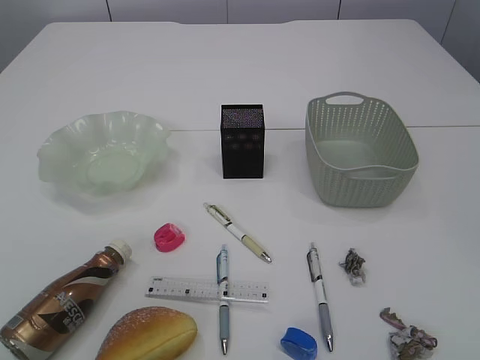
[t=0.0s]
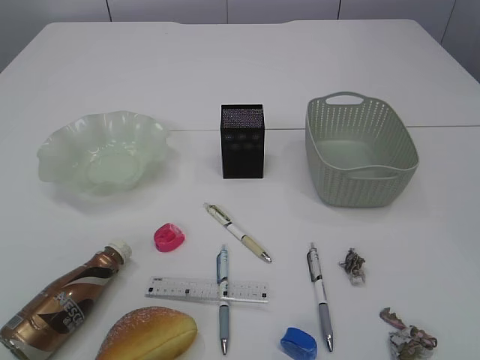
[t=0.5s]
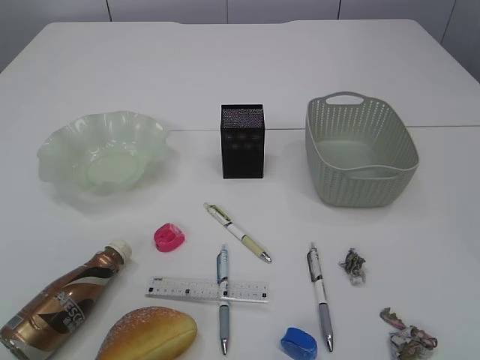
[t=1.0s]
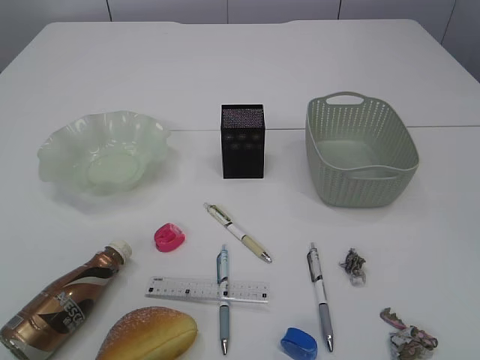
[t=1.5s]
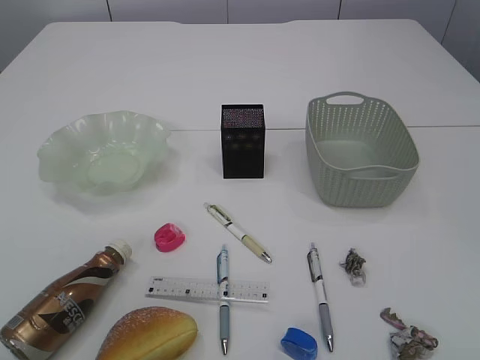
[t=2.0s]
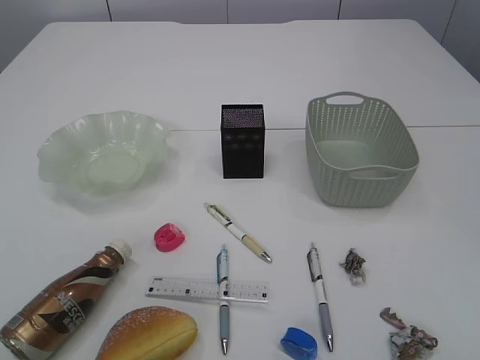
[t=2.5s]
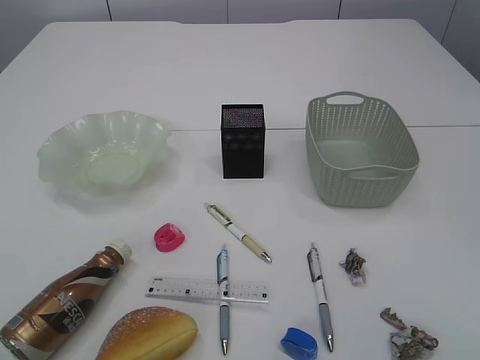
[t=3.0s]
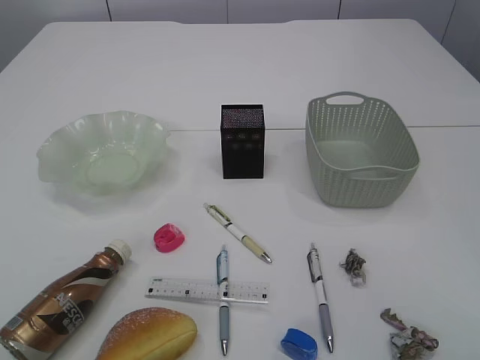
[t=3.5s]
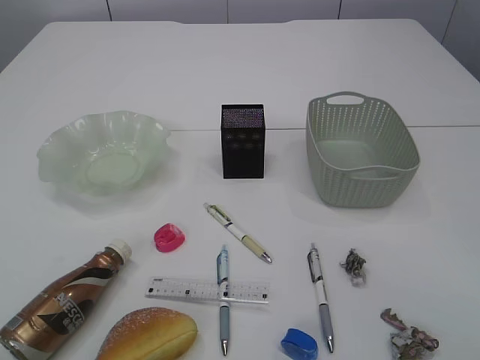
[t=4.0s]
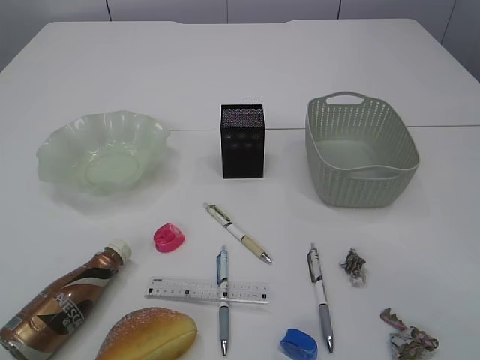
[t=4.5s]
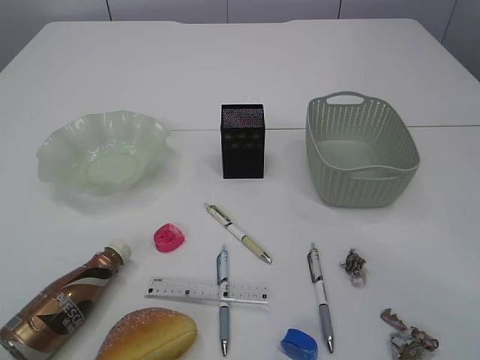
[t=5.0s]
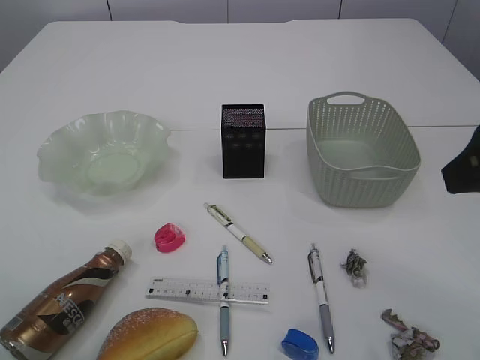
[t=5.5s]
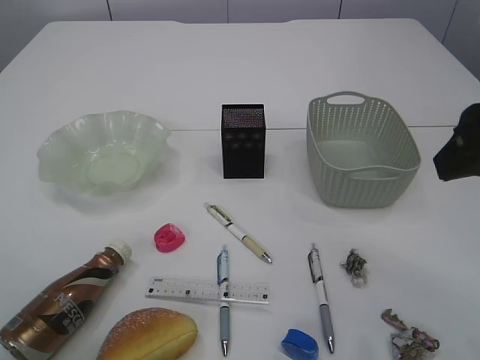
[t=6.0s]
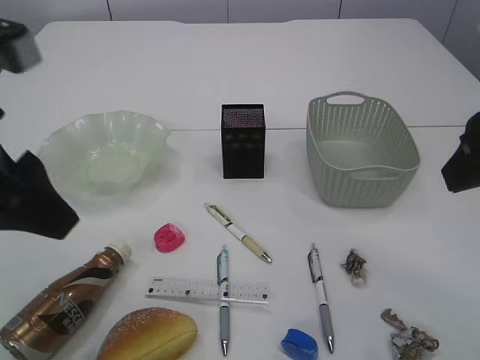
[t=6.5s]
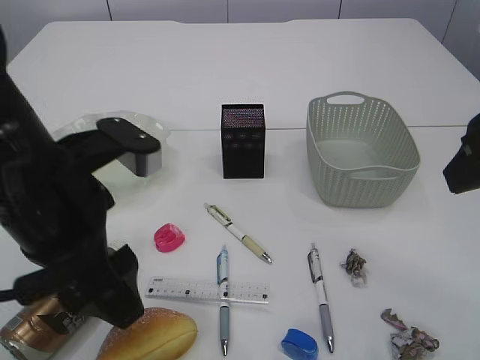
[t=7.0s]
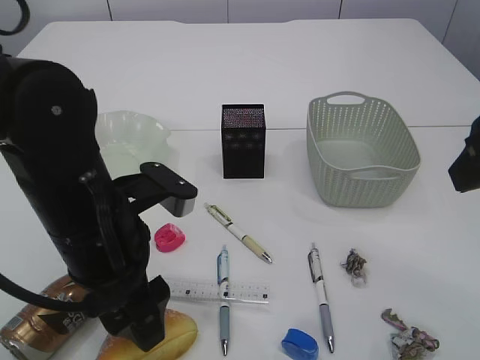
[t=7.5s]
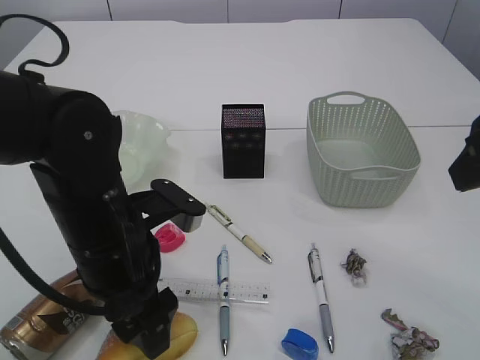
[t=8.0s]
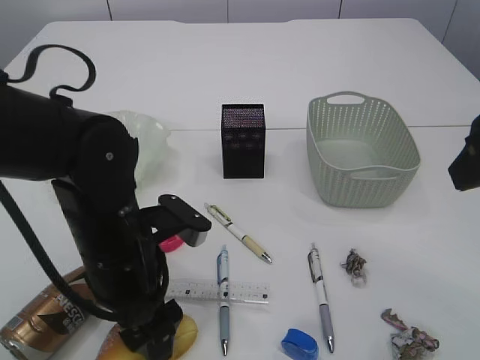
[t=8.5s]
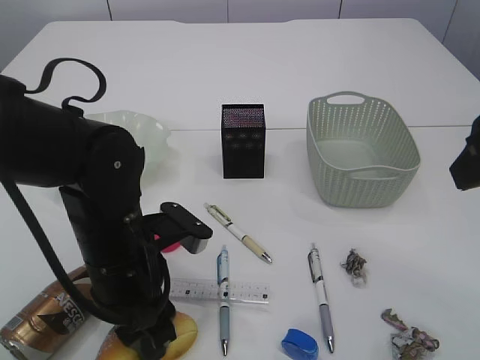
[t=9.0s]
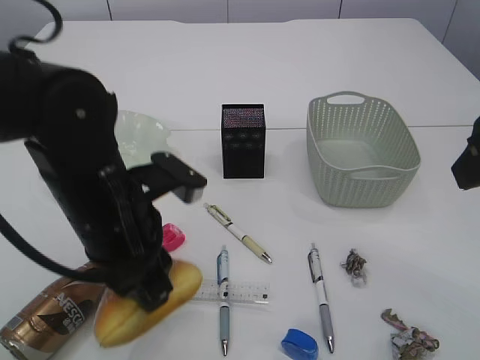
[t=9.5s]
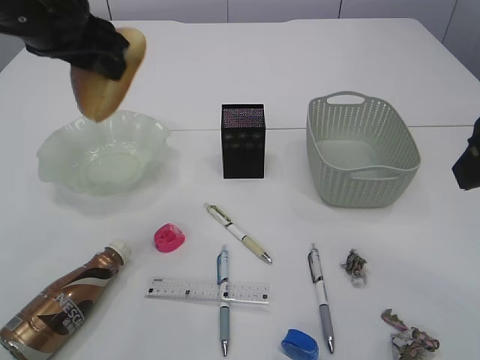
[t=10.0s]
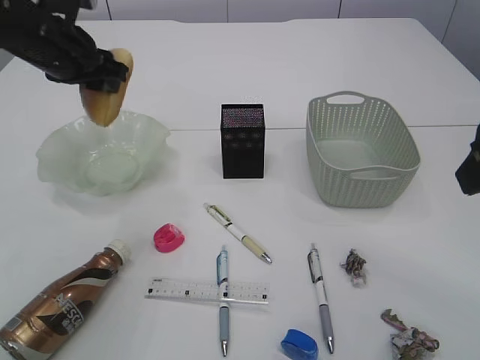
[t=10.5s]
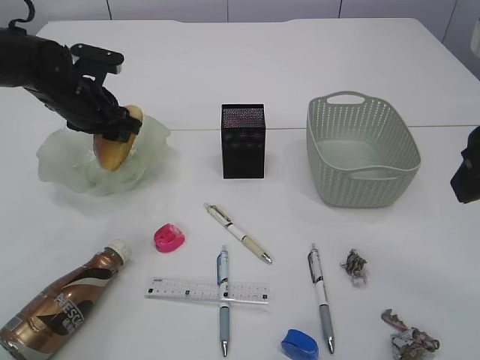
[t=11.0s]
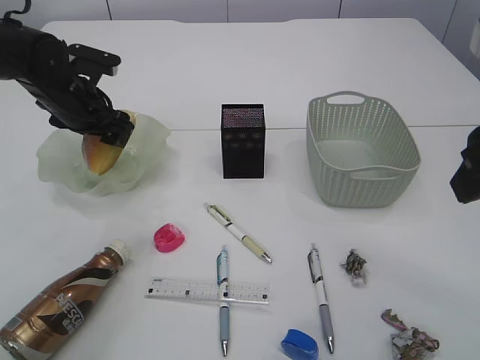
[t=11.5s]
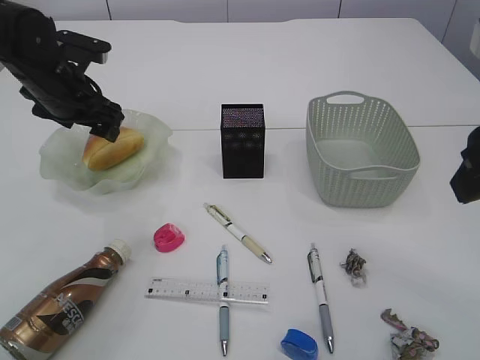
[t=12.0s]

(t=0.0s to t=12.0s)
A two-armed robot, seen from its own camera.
t=4.0s - t=6.0s: The right gripper moves forward and to the left, roughly 10 cm.
t=6.0s - t=8.0s: The left gripper heads downward and to the right, covering about 25 cm, and opens.
t=8.0s - t=10.0s: The left gripper travels upward, forward and to the left by about 20 cm, and closes up.
t=10.0s - t=12.0s: The left gripper travels downward and forward by roughly 15 cm, and opens up.

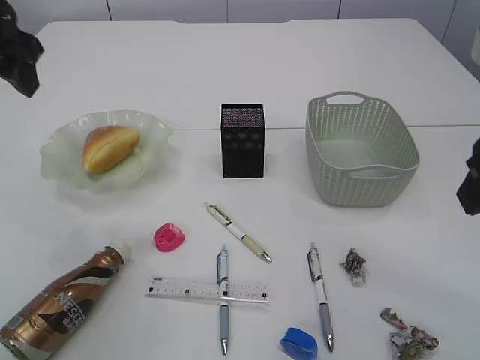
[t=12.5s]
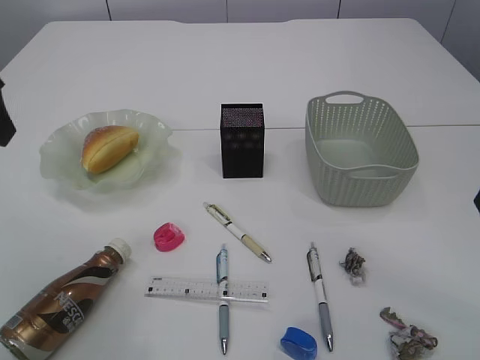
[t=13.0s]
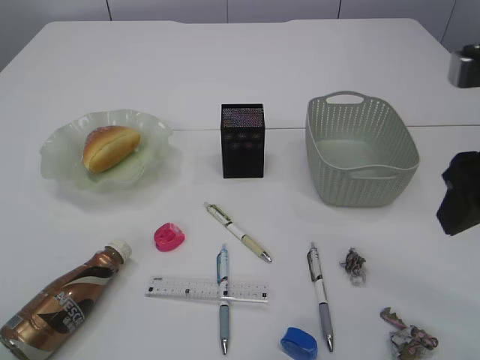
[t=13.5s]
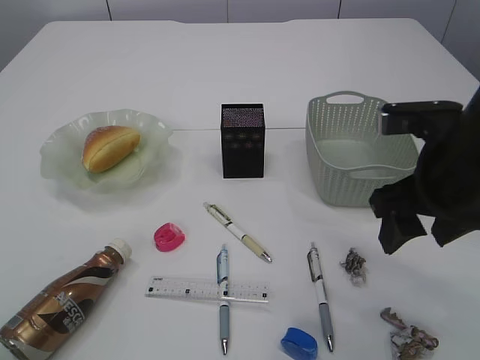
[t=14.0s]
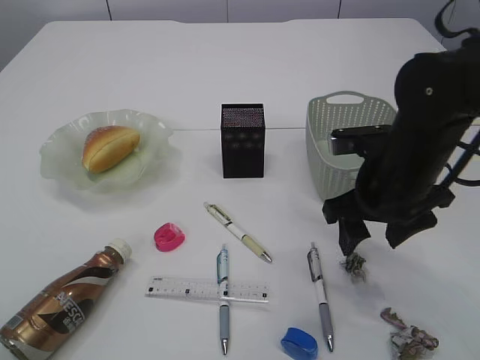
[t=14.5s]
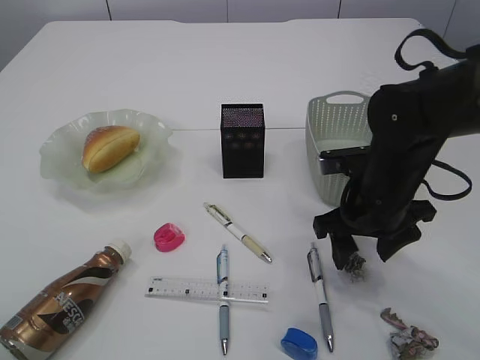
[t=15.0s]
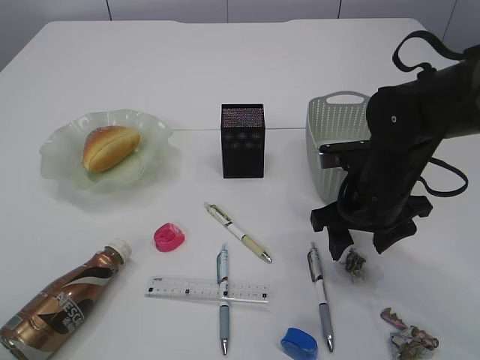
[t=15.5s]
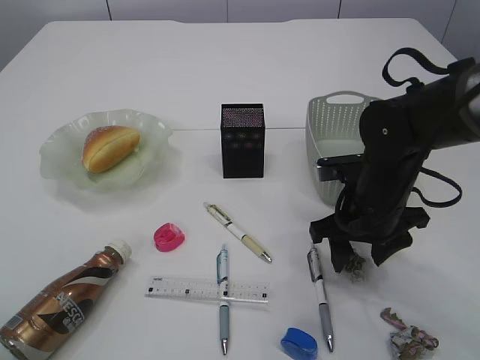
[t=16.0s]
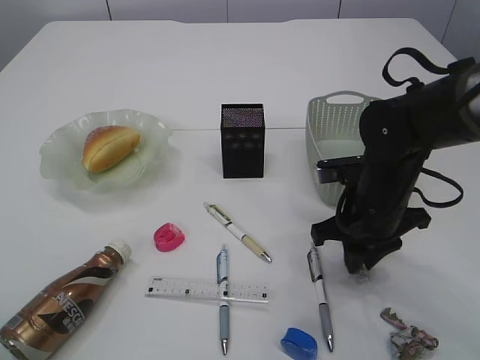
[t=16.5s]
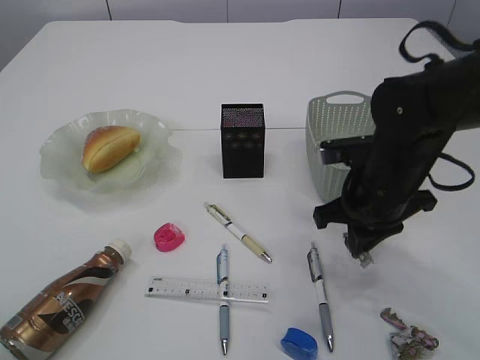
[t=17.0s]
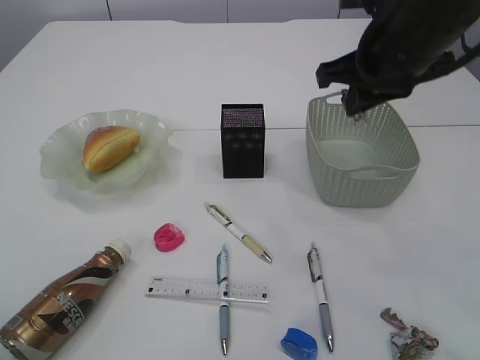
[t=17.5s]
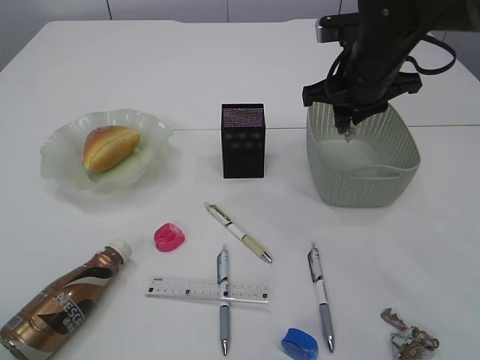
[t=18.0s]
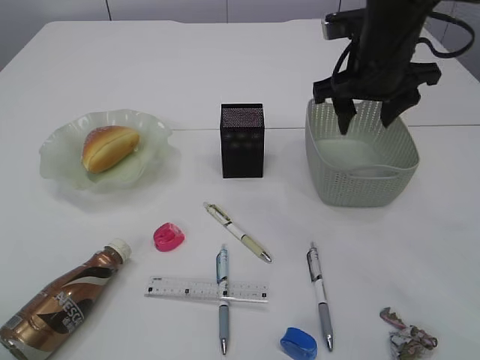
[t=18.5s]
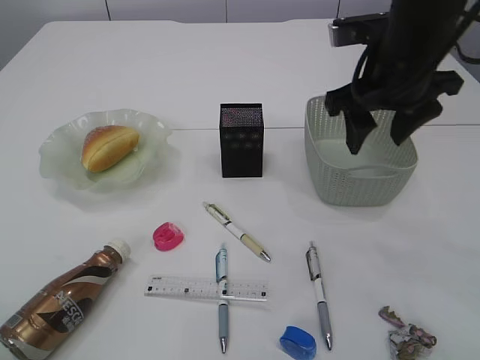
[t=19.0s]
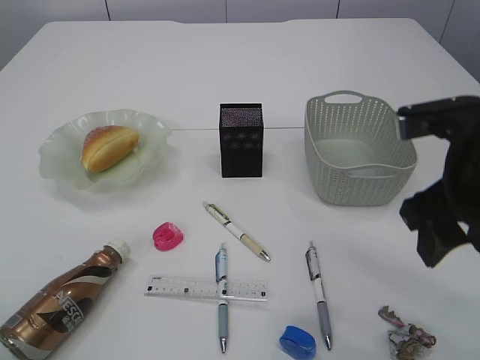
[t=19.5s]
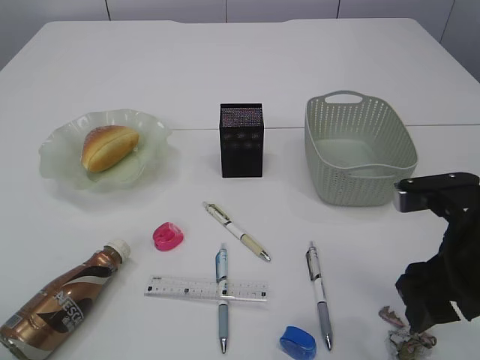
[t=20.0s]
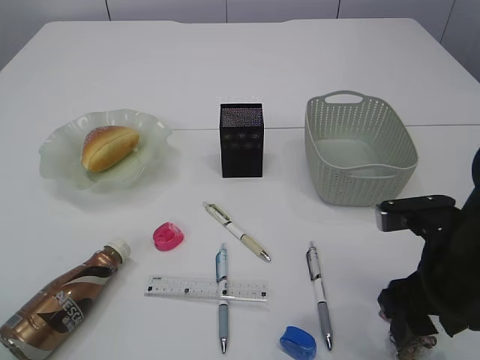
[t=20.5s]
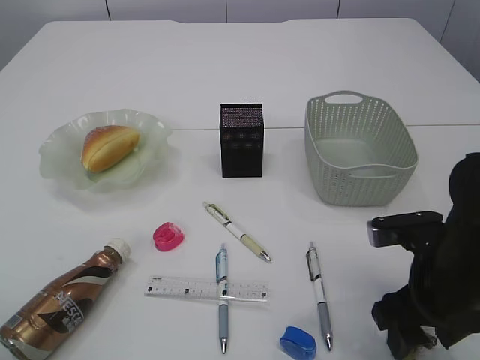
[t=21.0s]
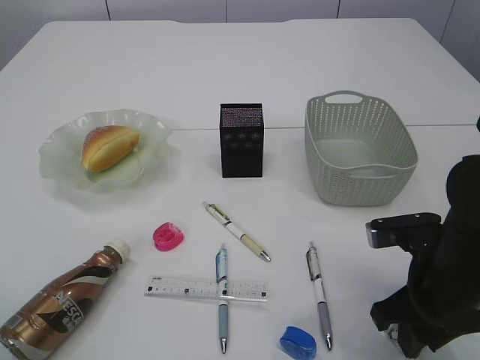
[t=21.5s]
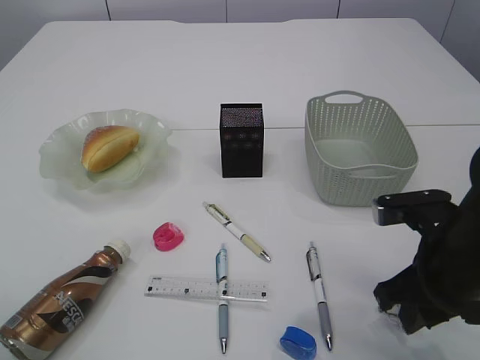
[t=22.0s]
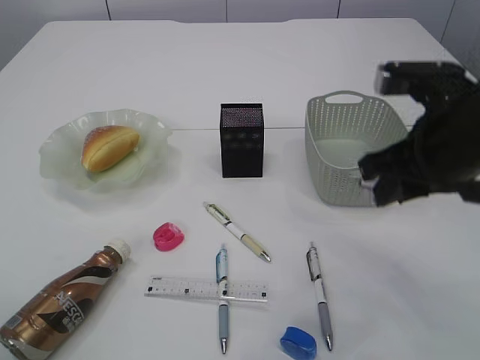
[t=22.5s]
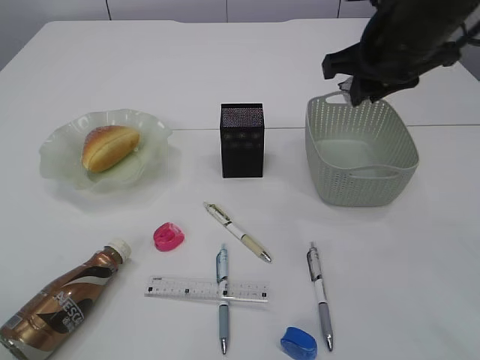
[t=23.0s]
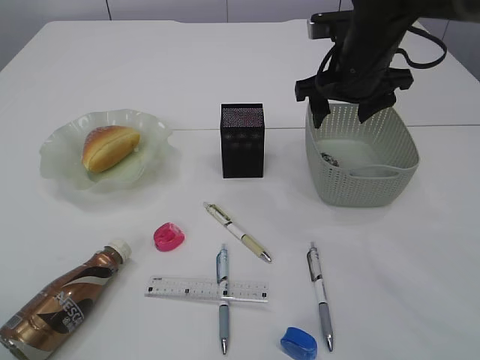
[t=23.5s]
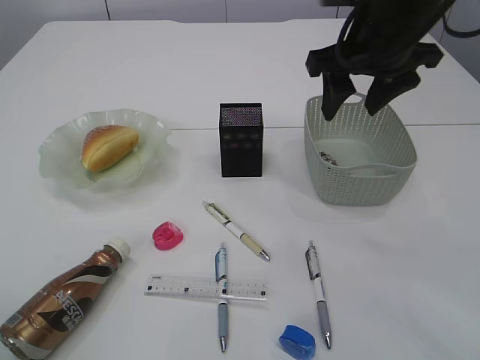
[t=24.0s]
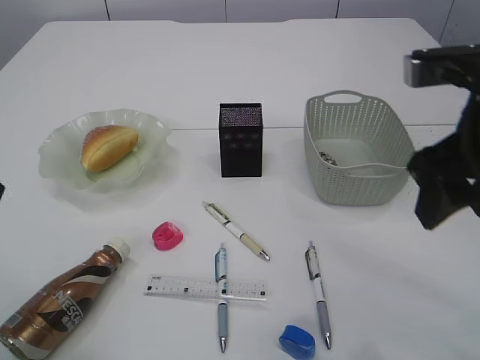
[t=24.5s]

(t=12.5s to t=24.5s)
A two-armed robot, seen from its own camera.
Step, t=13.0s - t=17.0s: Pick up the waste paper.
Step, t=17.5s - t=18.5s: Place the waste paper in the basket.
Step, t=19.0s - t=22.0s: Pick up the waste paper.
Step, t=22.5s - t=23.0s: Place the waste paper in the basket.
t=12.5s - t=14.5s: The right gripper moves downward, forward and to the left, approximately 20 cm. The left gripper goes about 20 cm backward.
t=14.5s - t=16.5s: The right gripper shifts roughly 5 cm downward, and closes.
t=16.5s - t=18.5s: The right gripper shifts approximately 15 cm upward and forward, and opens its fingers.
t=18.5s - t=20.5s: The right gripper heads backward and downward, covering about 20 cm.
t=20.5s - t=22.5s: The right gripper goes about 10 cm upward, and closes its fingers.
t=22.5s - t=24.5s: The right gripper moves approximately 15 cm forward and comes back, and opens.

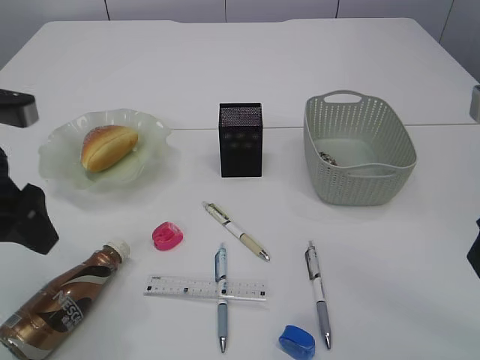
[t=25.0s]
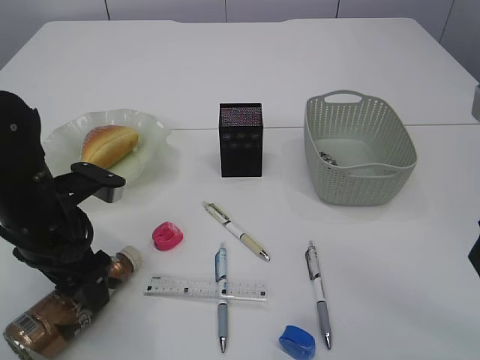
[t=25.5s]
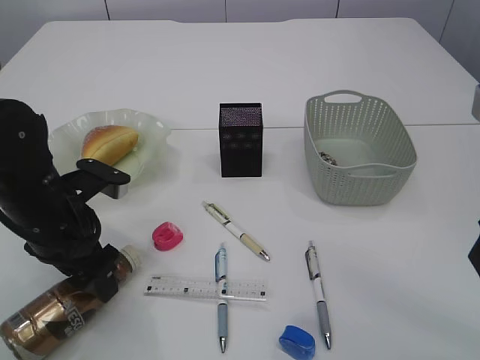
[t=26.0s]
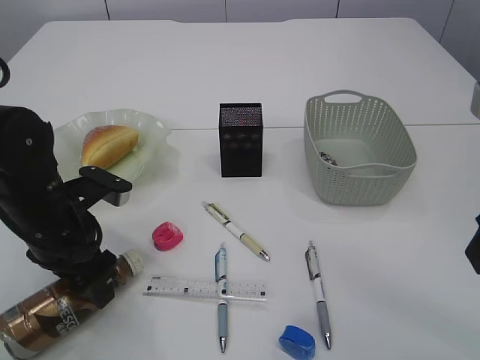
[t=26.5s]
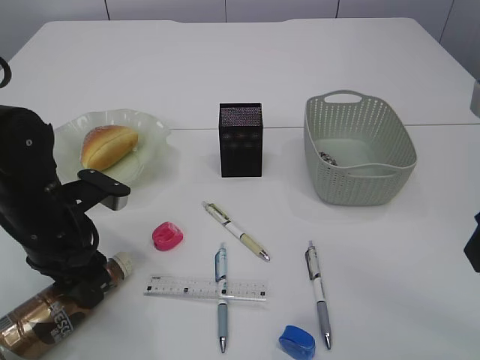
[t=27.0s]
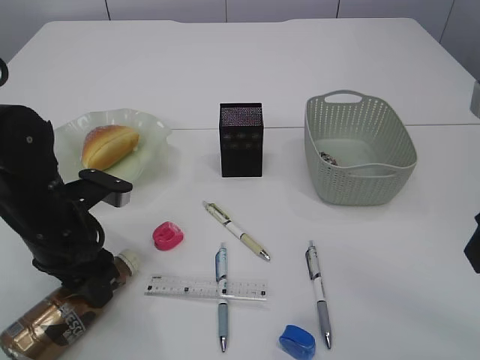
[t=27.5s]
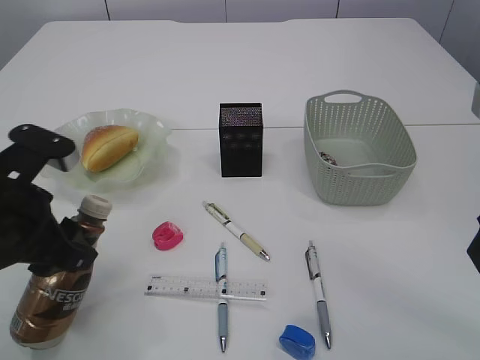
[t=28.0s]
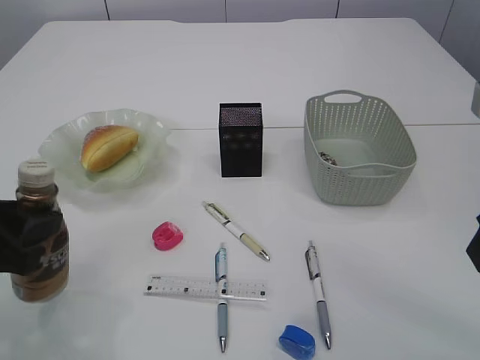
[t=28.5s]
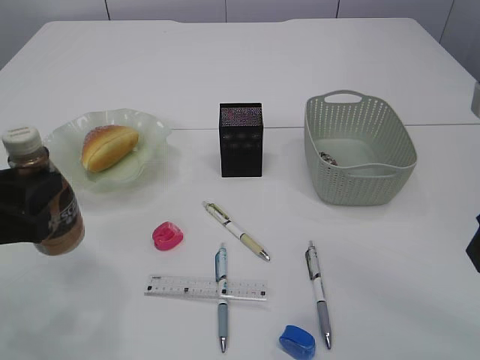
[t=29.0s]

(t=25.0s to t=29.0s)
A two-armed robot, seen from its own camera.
Step, t=25.0s - t=28.0s: Pick up the bottle with the left arm.
t=25.0s - t=27.0s: The left gripper is displaced downward by roughly 10 cm, and closes up.
t=27.0s - t=29.0s: The left gripper heads backward, upward and to the left, covering roughly 10 cm.
